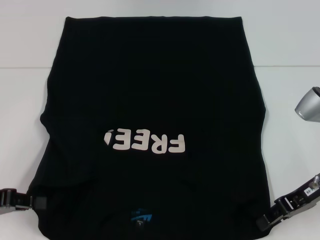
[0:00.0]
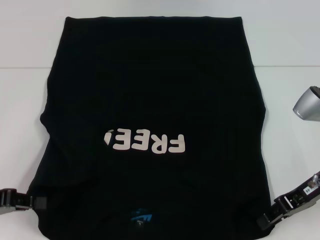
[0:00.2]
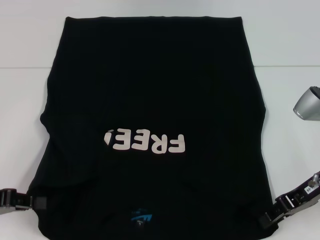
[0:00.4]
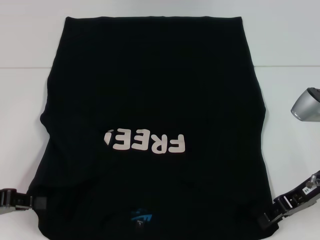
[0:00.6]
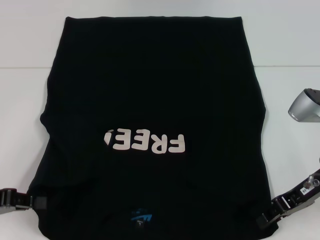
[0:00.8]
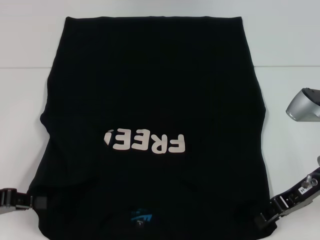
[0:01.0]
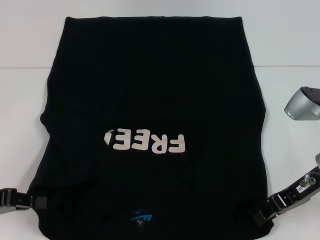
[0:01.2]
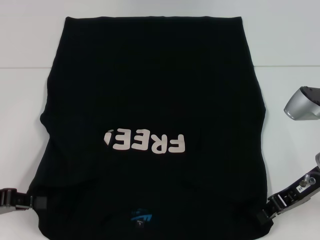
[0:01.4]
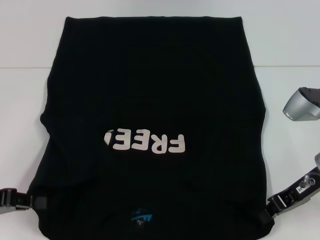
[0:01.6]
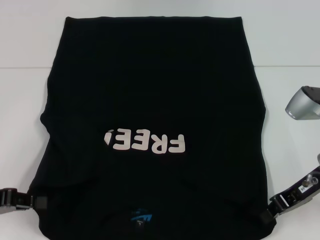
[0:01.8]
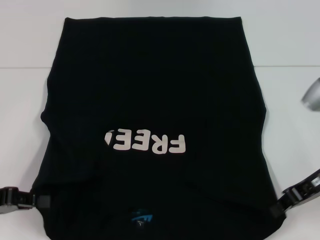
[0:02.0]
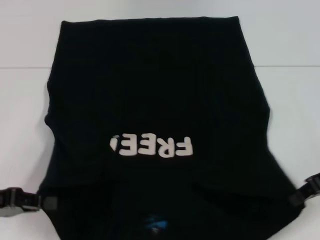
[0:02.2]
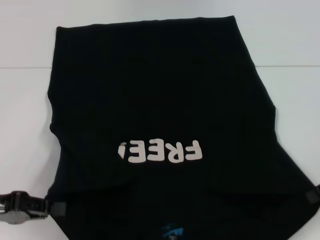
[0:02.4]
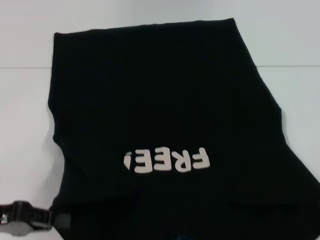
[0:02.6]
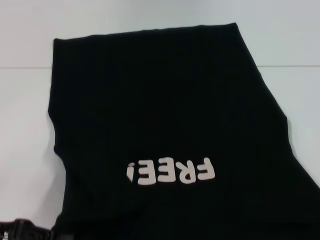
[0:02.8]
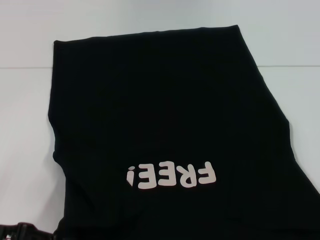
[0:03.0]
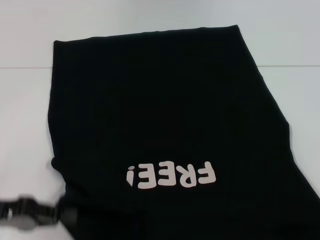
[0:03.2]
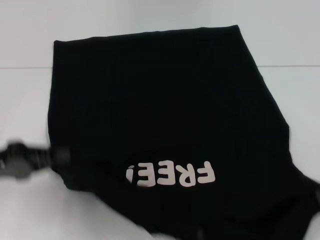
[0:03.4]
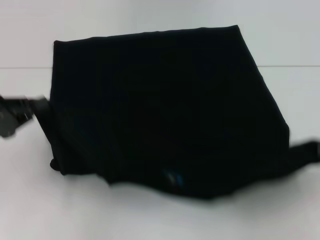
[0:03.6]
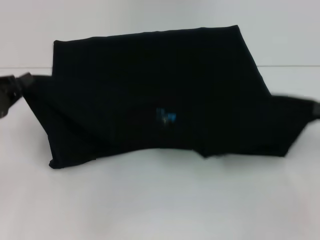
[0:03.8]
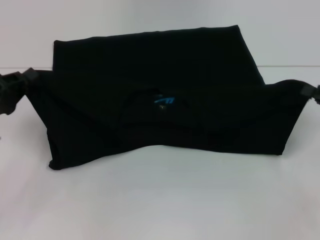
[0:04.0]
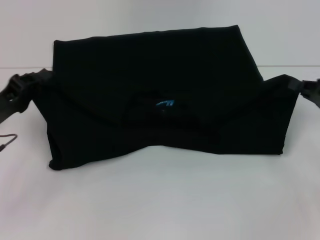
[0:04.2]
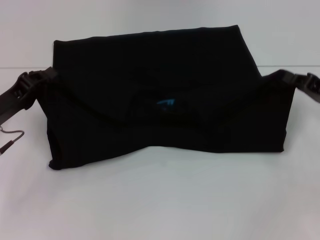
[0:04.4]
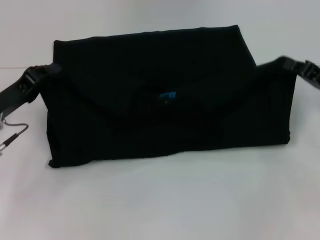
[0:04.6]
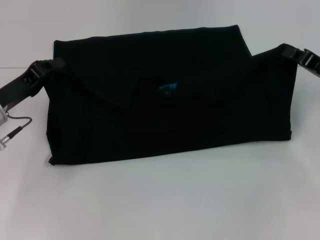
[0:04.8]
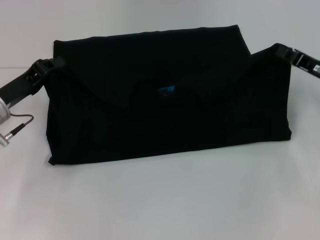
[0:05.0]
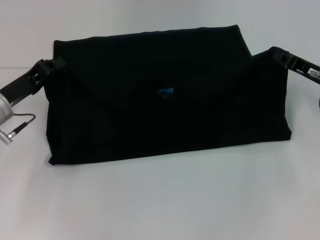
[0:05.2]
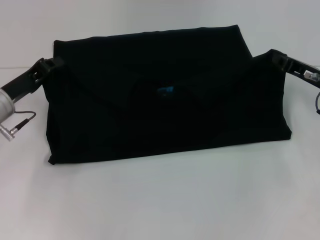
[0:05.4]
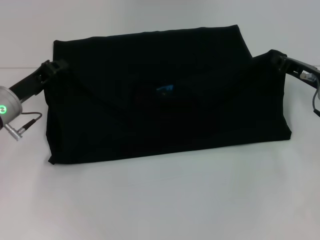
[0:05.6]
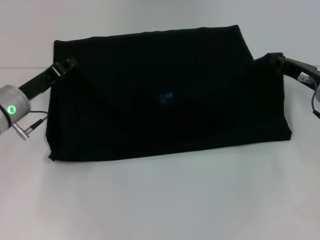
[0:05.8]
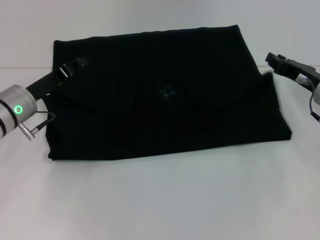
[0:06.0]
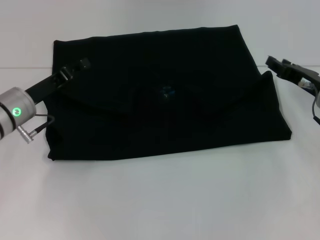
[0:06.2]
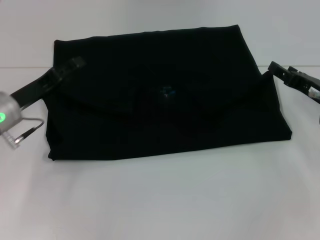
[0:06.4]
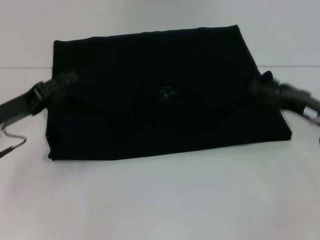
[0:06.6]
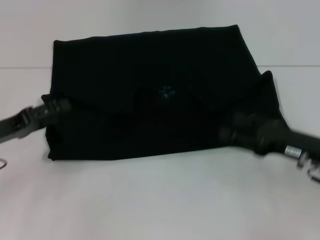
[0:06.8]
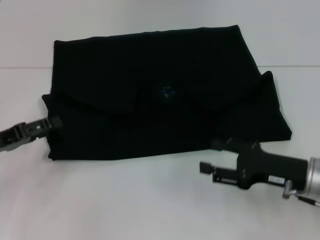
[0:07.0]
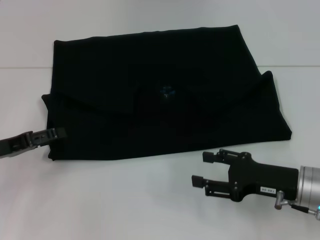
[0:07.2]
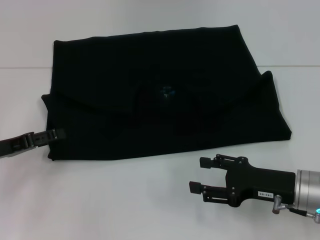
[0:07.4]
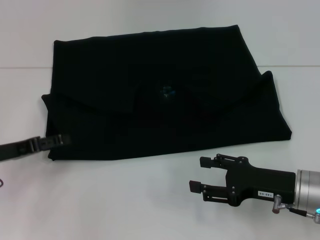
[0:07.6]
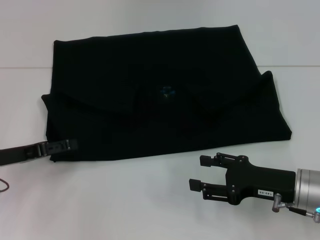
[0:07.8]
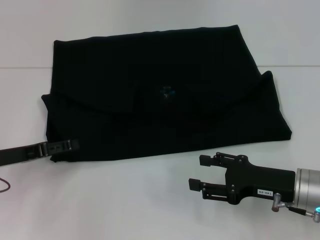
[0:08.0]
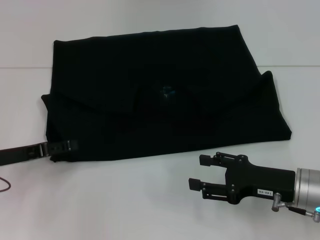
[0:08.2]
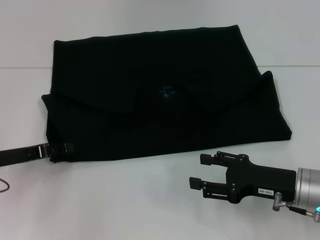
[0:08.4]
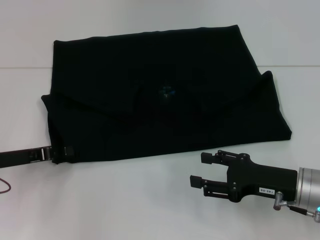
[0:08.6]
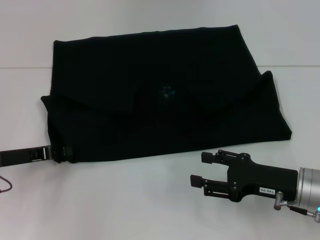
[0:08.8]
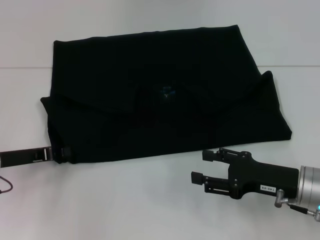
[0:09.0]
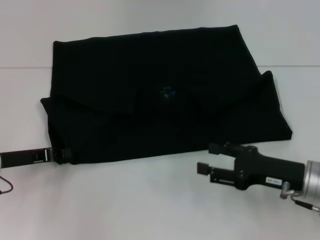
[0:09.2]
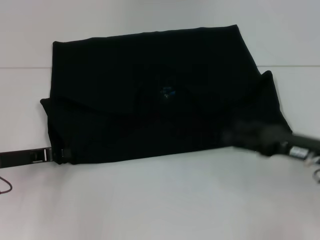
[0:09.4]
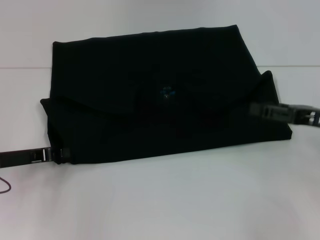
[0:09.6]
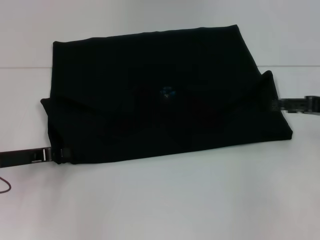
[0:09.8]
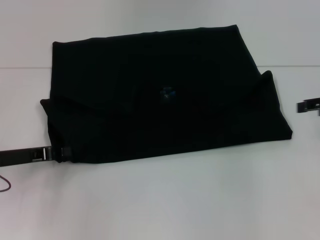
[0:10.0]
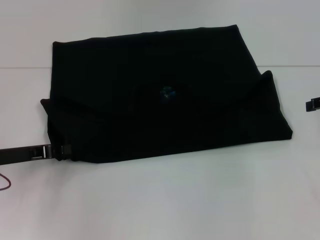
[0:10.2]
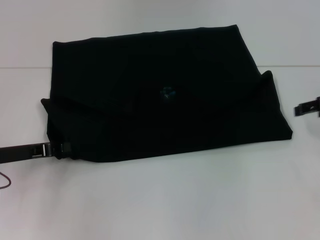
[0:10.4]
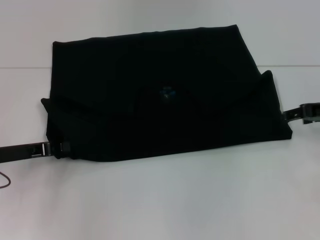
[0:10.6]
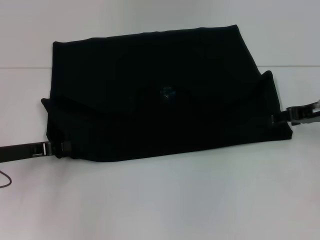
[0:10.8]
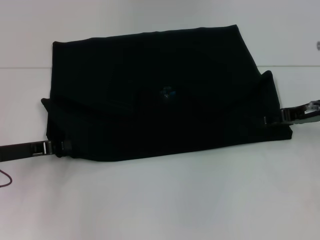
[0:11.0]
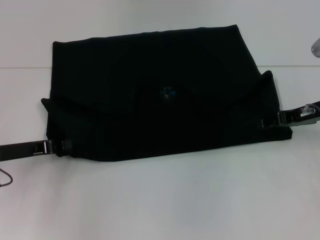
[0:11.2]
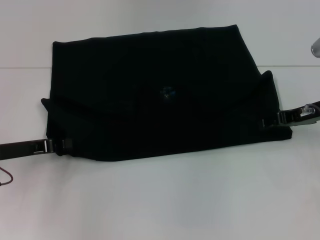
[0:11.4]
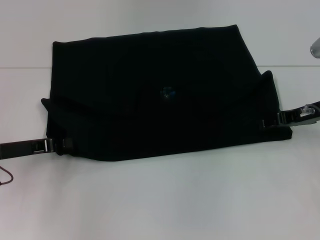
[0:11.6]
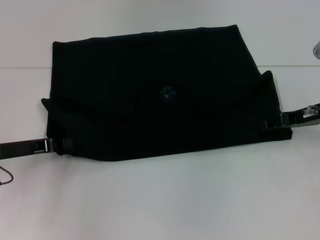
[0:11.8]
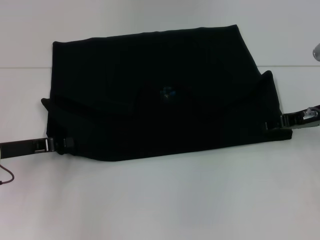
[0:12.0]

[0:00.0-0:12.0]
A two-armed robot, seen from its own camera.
Step, 0:00.0 to 0:06.4: Fold the clothes with your left hand.
Step, 0:00.0 to 0:06.4: Fold the clothes with your right hand.
0:00.0 to 0:01.6: The two grippers keep their place.
0:01.6 to 0:03.0: The right gripper moves to the right, roughly 10 cm.
0:03.0 to 0:04.4: The two grippers go roughly 10 cm forward.
0:04.4 to 0:06.0: The right gripper goes some 5 cm to the left, while the left gripper shifts some 5 cm forward.
0:06.0 to 0:07.6: The right gripper travels backward by approximately 10 cm, and opens up; the left gripper travels to the left and backward by some 10 cm, and opens.
0:07.6 to 0:09.0: The left gripper closes its fingers.
0:09.0 to 0:10.4: The right gripper travels forward, upward and to the right by about 20 cm.
0:10.4 to 0:12.0: The right gripper is displaced to the left by about 5 cm.

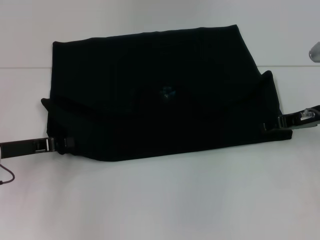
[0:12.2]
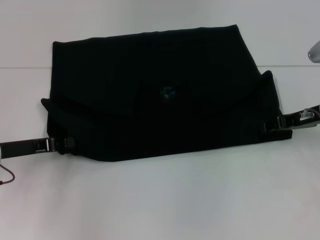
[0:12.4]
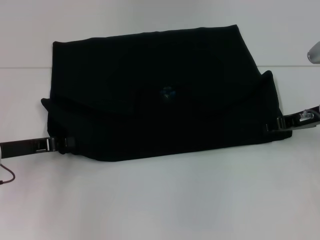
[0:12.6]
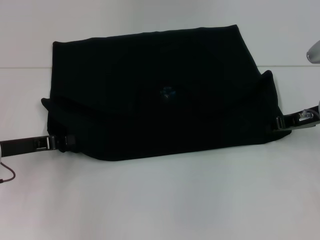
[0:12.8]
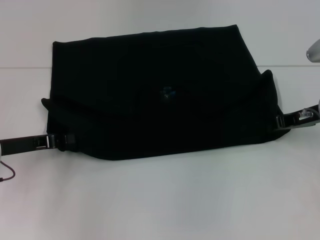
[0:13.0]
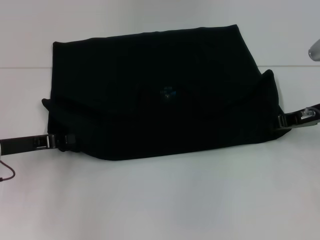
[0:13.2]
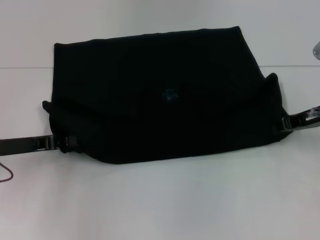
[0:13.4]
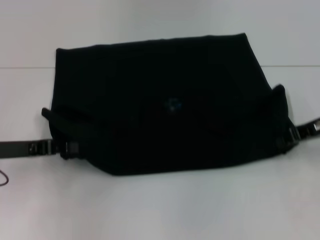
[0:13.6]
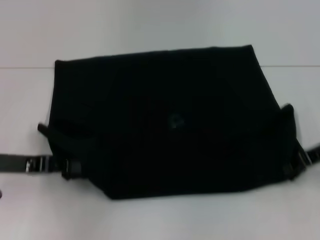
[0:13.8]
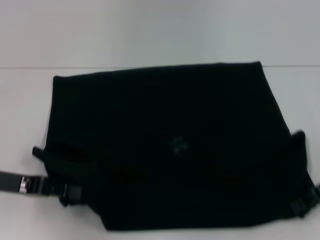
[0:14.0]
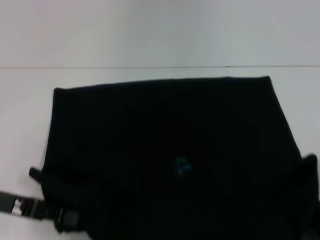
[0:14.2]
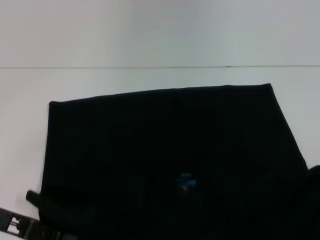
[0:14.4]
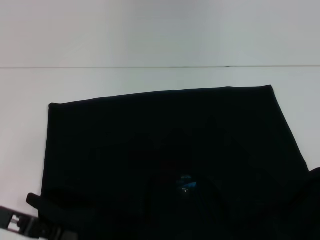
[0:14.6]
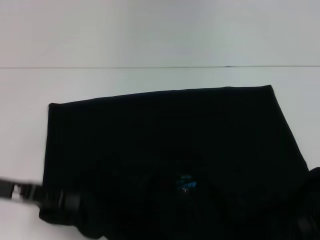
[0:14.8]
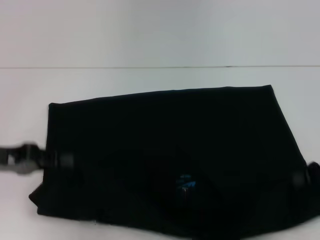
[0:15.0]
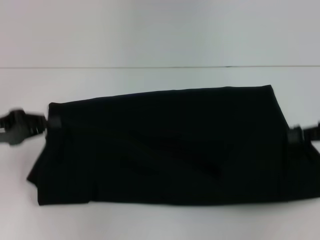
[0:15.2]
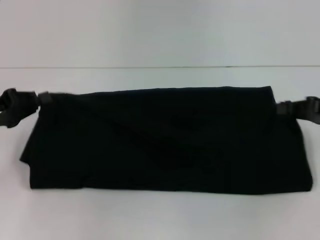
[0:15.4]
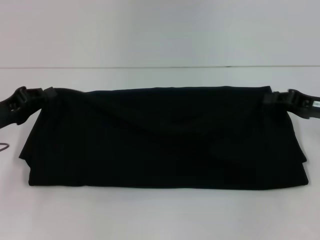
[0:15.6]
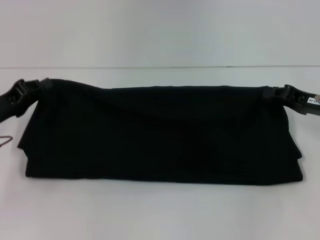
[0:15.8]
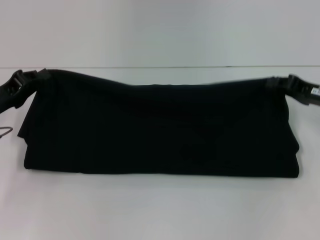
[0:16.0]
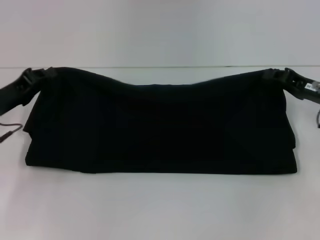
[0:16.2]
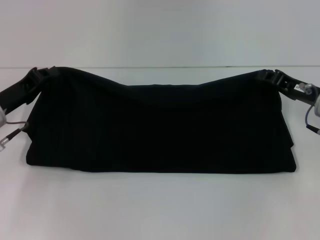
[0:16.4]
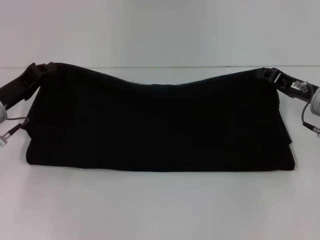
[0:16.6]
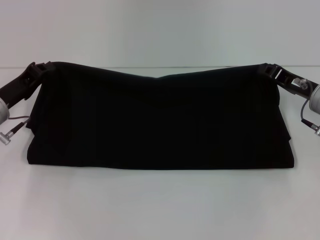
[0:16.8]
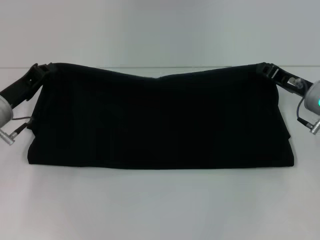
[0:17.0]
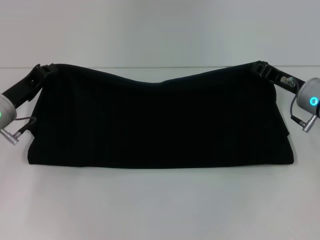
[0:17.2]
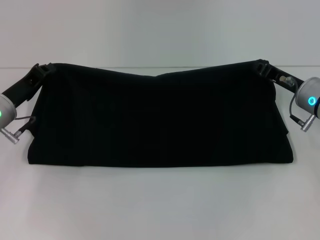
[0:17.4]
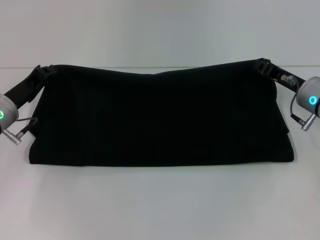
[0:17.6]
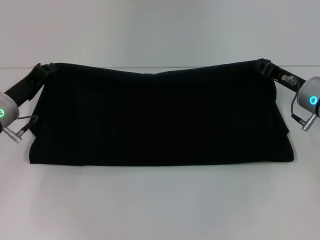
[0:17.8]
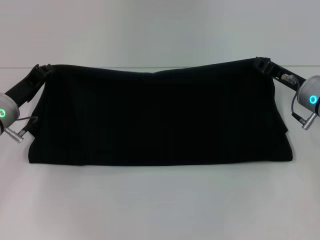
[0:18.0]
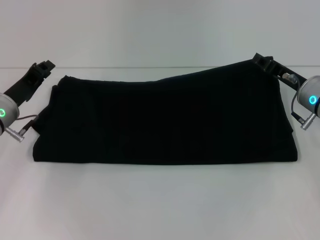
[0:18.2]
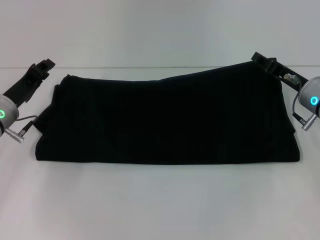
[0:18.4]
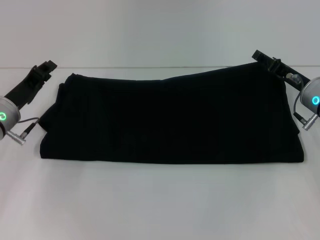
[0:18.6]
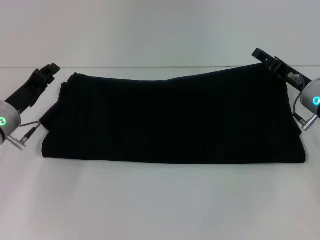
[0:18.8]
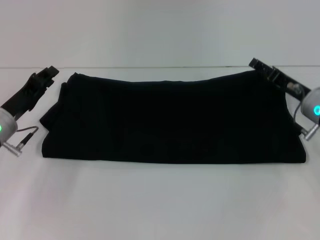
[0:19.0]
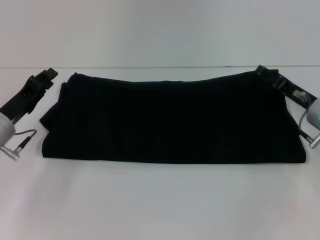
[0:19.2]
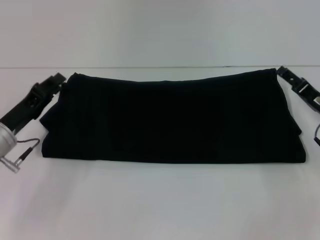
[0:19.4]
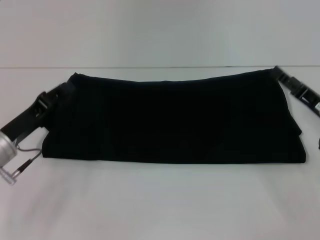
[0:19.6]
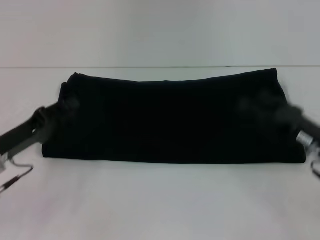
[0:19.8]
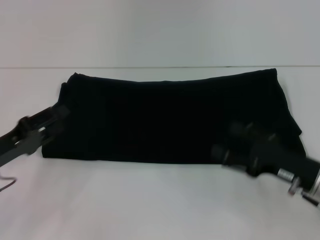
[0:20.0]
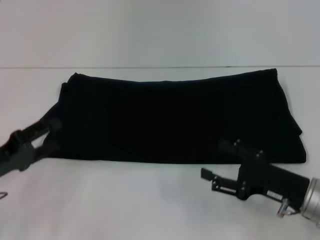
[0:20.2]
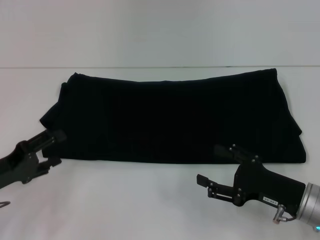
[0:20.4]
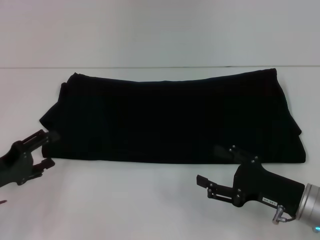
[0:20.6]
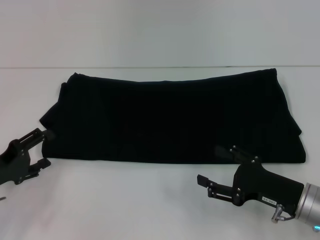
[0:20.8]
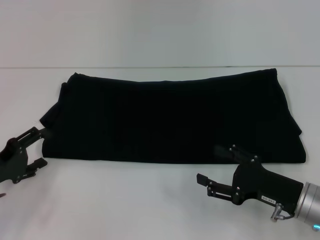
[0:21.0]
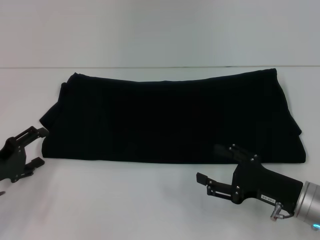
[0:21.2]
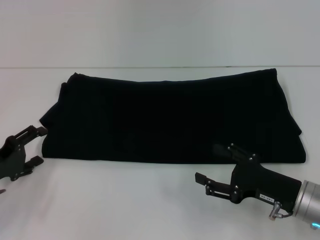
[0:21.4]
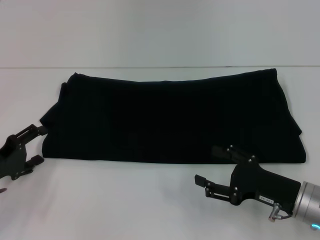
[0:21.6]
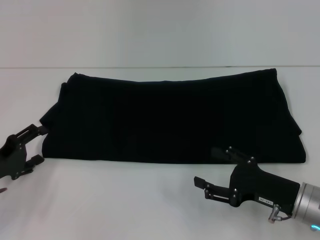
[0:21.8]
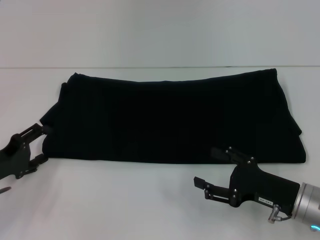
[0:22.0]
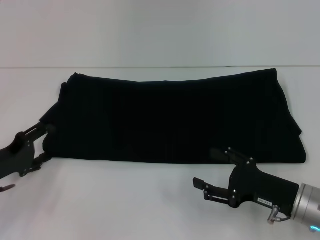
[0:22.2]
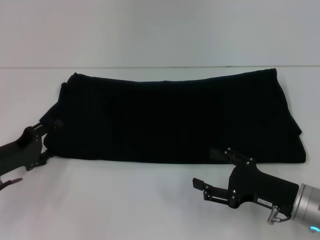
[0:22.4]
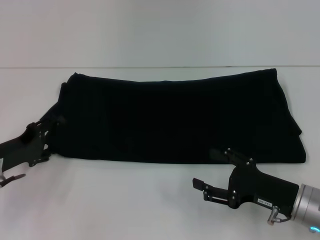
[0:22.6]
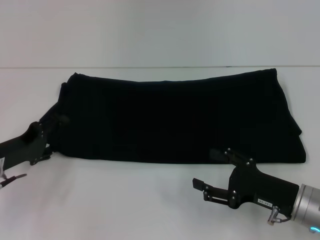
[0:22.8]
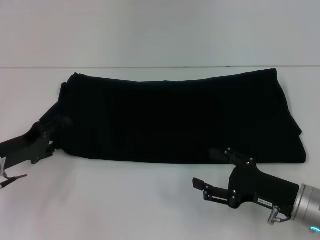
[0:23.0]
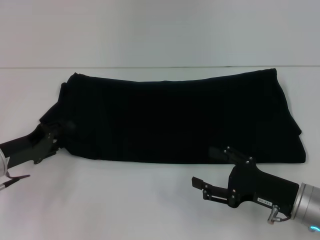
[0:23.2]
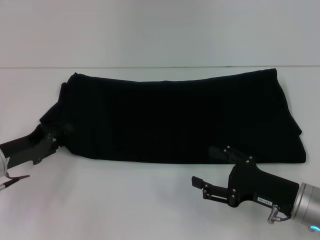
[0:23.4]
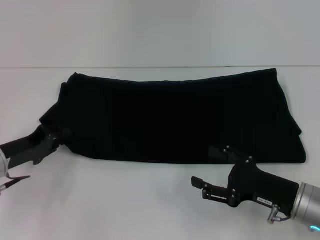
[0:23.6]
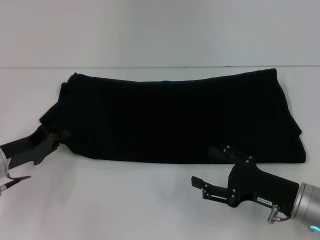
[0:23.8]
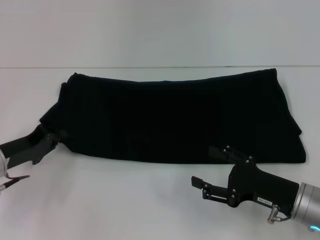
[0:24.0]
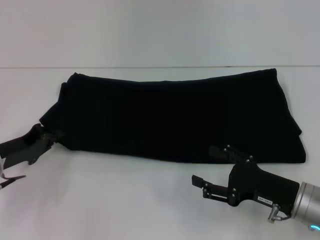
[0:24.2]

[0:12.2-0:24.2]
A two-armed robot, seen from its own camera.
Step, 0:12.2 to 0:14.2: Pull the clothes with your left hand.
Step, 0:12.2 to 0:14.2: Pull the clothes with your right hand.
Step, 0:14.4 to 0:19.2: Fold the clothes with your right hand.
0:12.2 to 0:13.8: The right gripper shifts by approximately 5 cm, and closes up.
0:13.8 to 0:15.2: The right gripper moves approximately 10 cm backward and comes back.
0:15.2 to 0:16.6: The right gripper moves to the left, downward and forward, roughly 10 cm. The left gripper travels forward by approximately 5 cm.
0:16.6 to 0:18.2: There are only small adjustments of the grippers.
0:18.2 to 0:19.8: Both grippers move backward, some 10 cm. The right gripper opens up.
0:19.8 to 0:21.2: The right gripper shifts by some 5 cm. The left gripper shifts by about 5 cm, and opens up.
0:21.2 to 0:22.6: There are only small adjustments of the grippers.
0:22.6 to 0:24.2: The left gripper closes.
